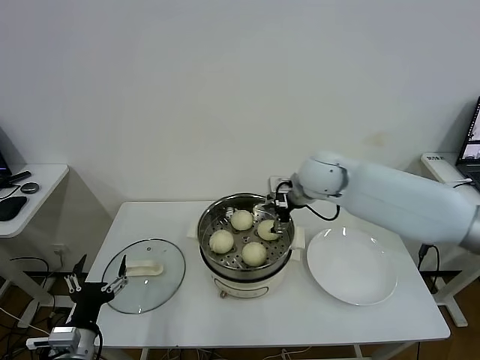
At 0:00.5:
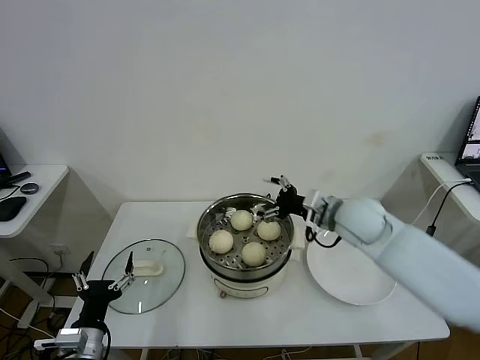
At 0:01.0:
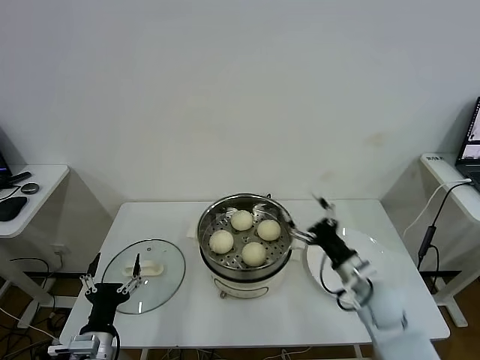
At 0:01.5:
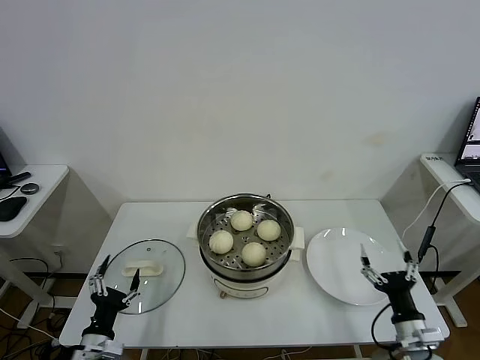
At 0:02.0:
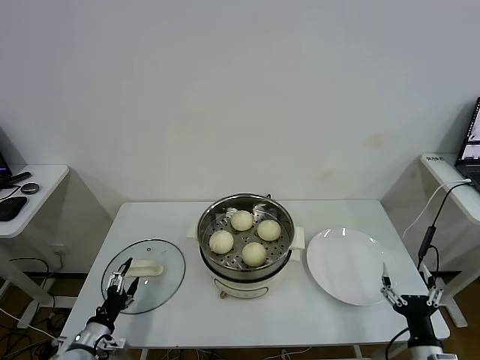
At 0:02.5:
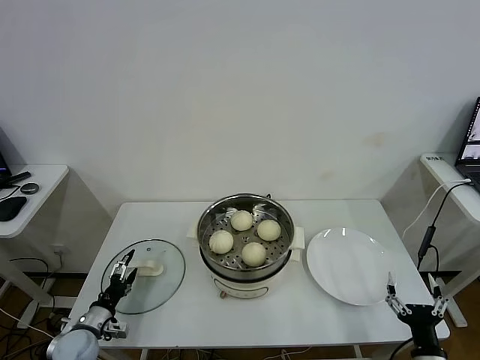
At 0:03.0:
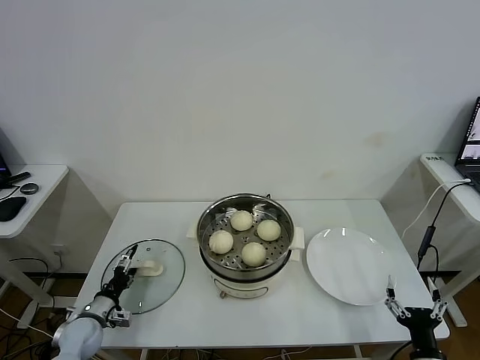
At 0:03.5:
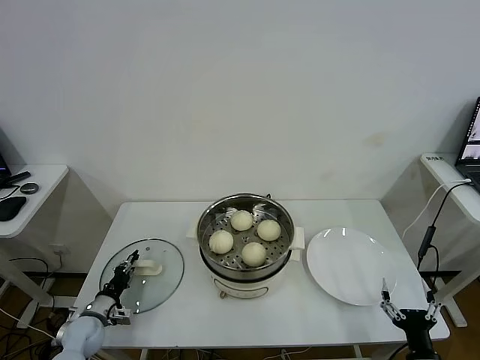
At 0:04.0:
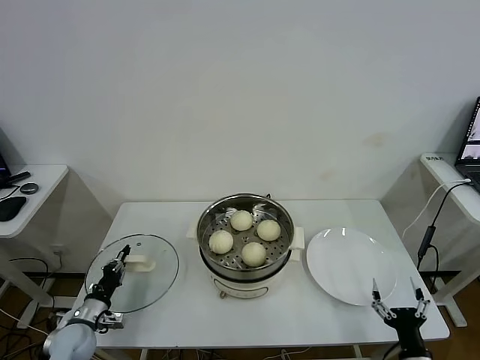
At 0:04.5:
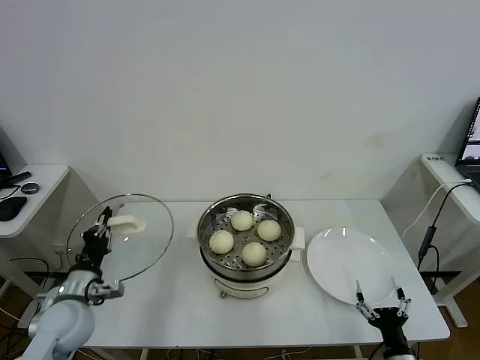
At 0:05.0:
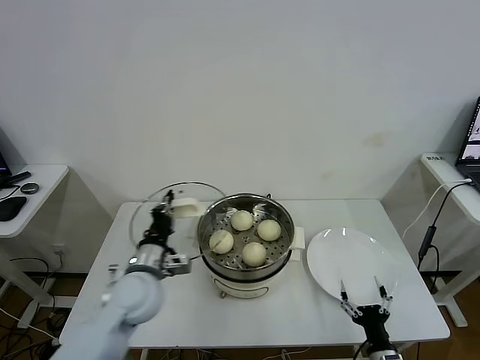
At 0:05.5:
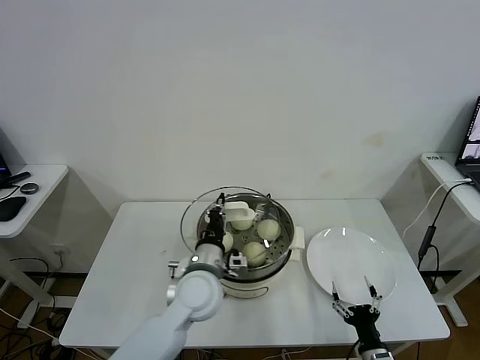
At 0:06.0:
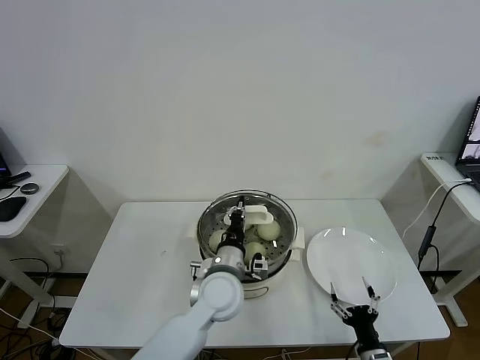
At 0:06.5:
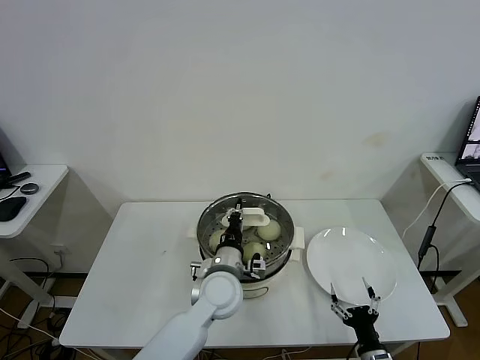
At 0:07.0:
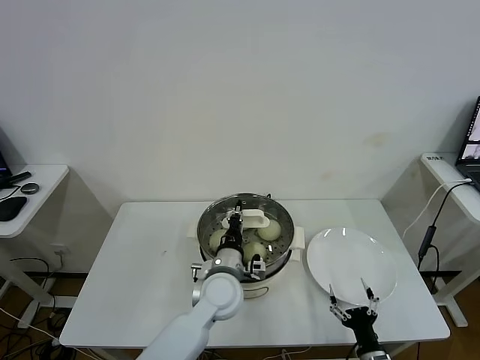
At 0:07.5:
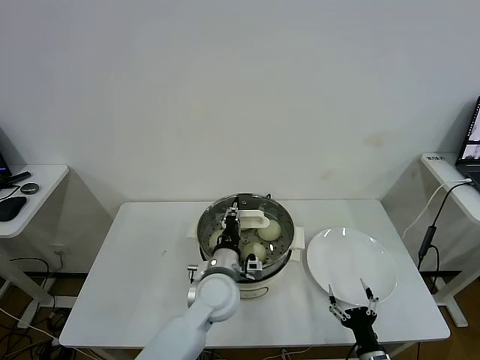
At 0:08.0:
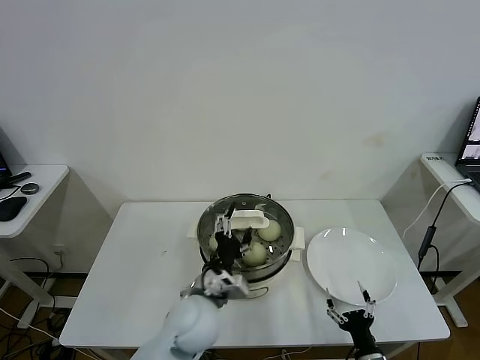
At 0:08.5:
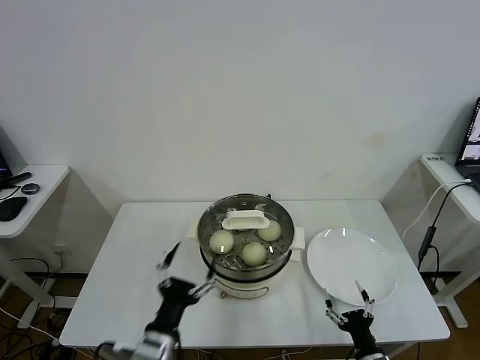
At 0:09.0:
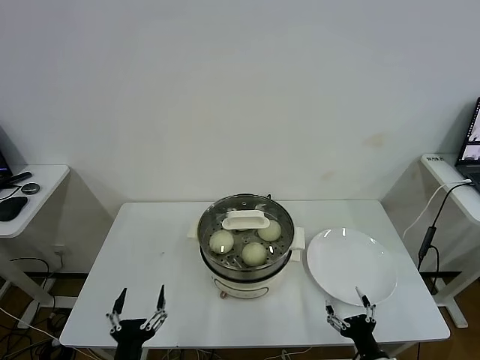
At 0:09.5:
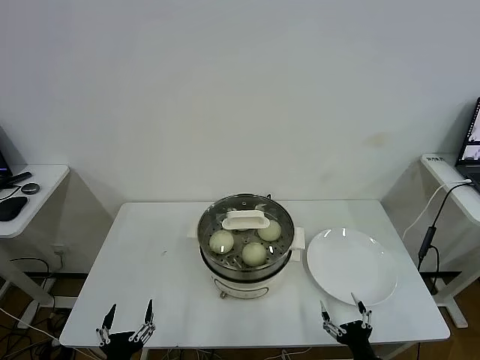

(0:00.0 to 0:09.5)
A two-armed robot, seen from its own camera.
Task of the whole recording: take steamed baozi put them in steamer.
Step, 0:00.0 - 0:03.5: Grasp the pot lid with left gripper.
Step, 0:04.0 - 0:07.5: Place the pot lid on the steamer with left gripper.
0:00.0 - 0:02.0: The left gripper heads downward and to the left, covering about 10 cm; the right gripper goes some 50 cm backward, downward and to the right.
0:02.0 - 0:04.0: The left gripper is displaced forward by about 5 cm, and closes its fingers.
0:04.0 - 0:05.5: The left gripper heads to the right and upward, covering some 35 cm; the right gripper shifts roughly 5 cm to the left.
0:05.5 - 0:07.5: The left gripper changes place by approximately 5 cm.
0:07.5 - 0:09.5: The left gripper is displaced backward and to the left by about 30 cm, and opens.
